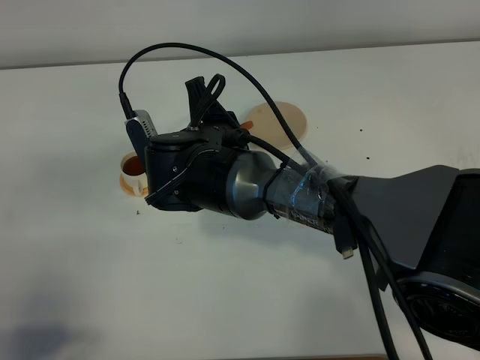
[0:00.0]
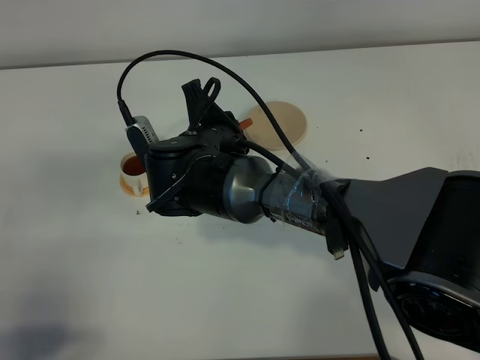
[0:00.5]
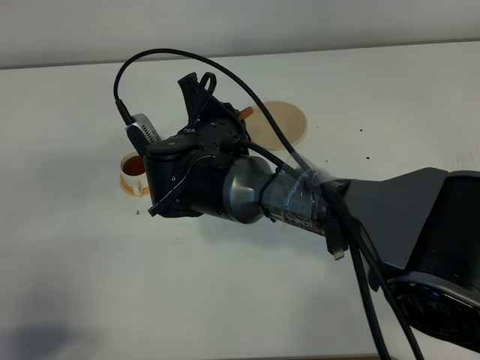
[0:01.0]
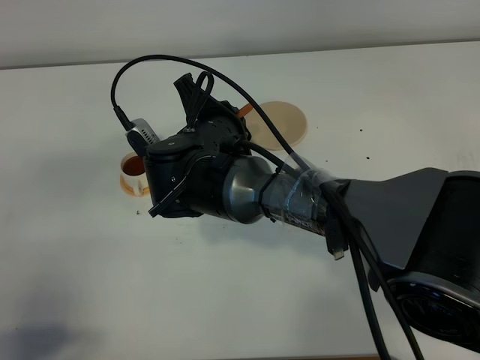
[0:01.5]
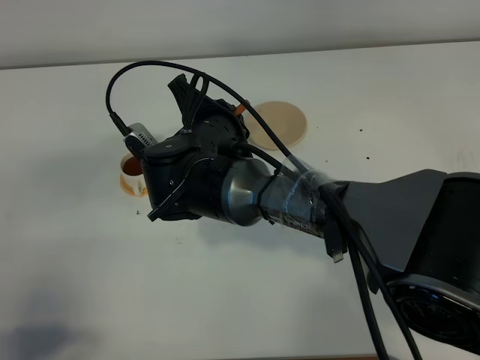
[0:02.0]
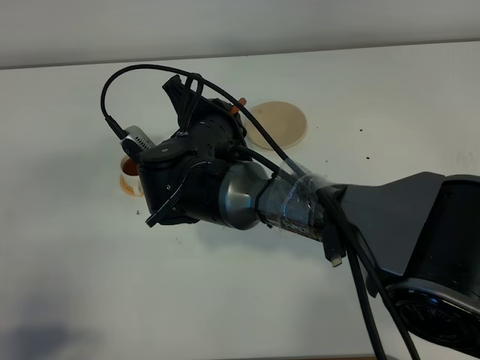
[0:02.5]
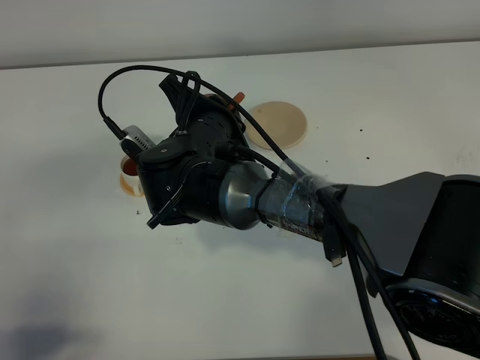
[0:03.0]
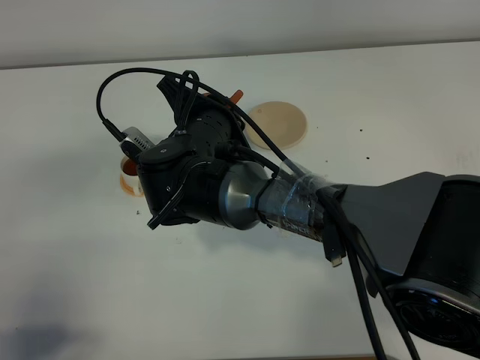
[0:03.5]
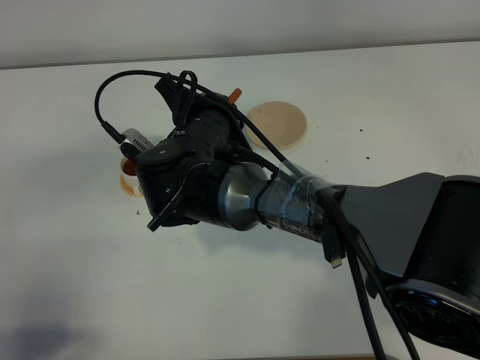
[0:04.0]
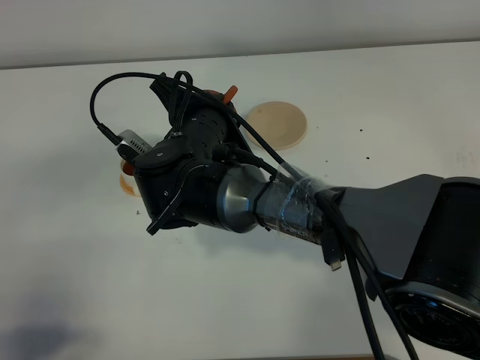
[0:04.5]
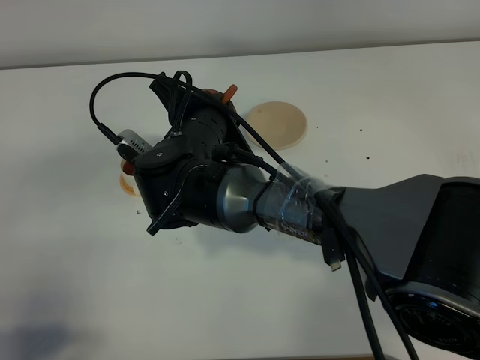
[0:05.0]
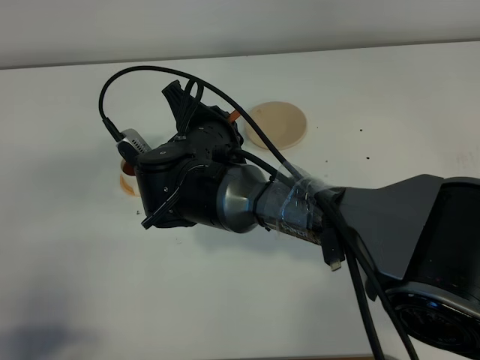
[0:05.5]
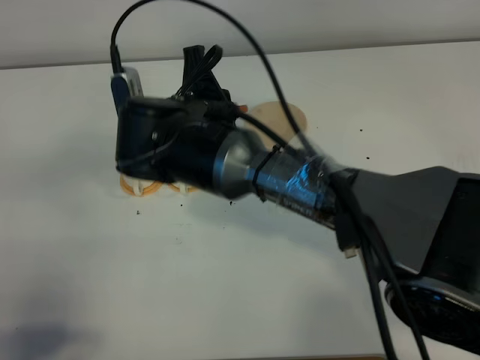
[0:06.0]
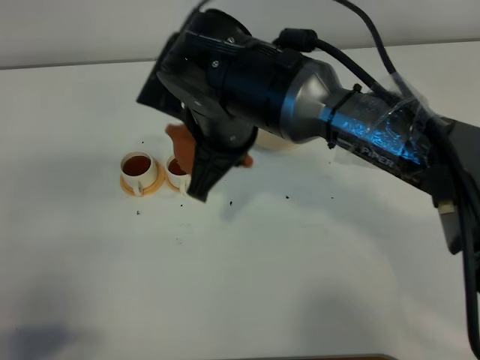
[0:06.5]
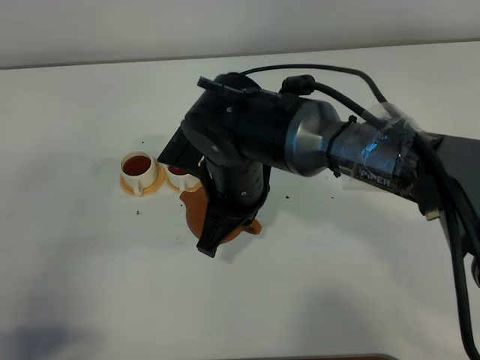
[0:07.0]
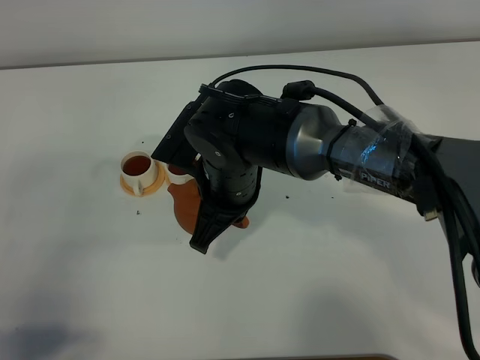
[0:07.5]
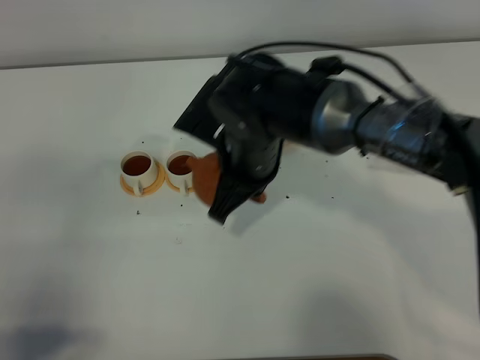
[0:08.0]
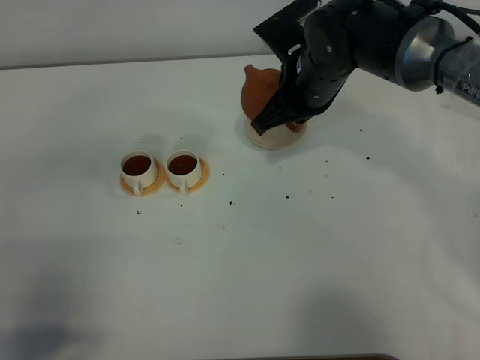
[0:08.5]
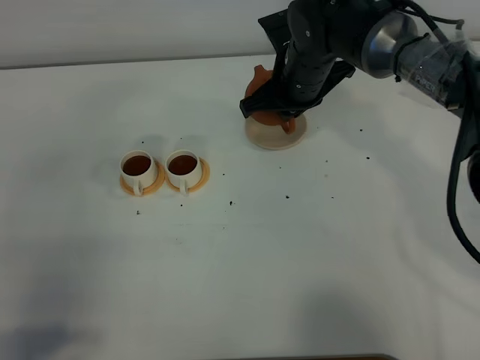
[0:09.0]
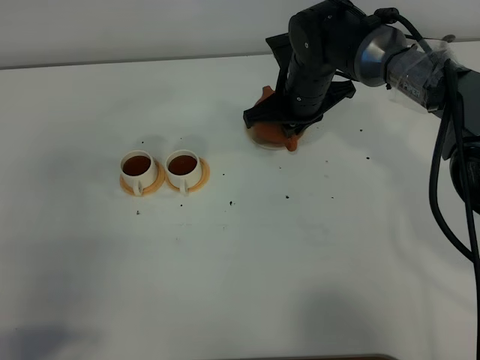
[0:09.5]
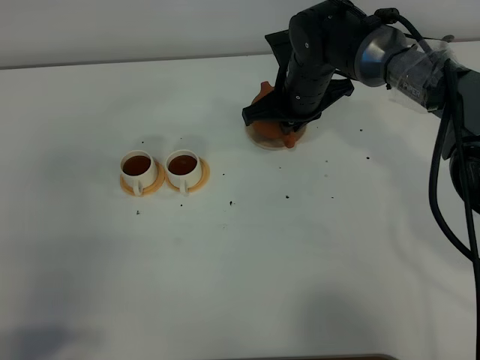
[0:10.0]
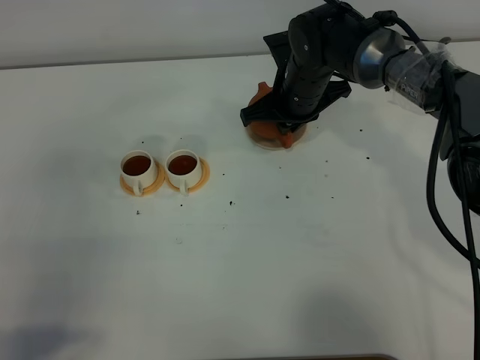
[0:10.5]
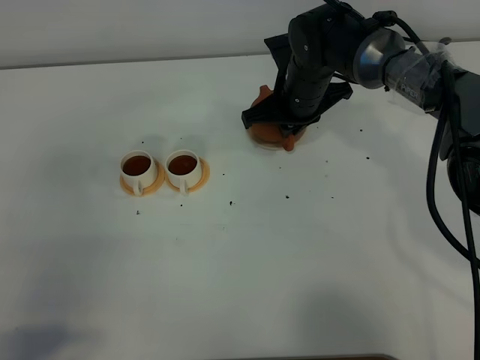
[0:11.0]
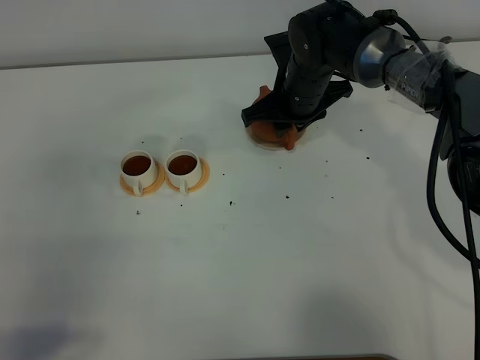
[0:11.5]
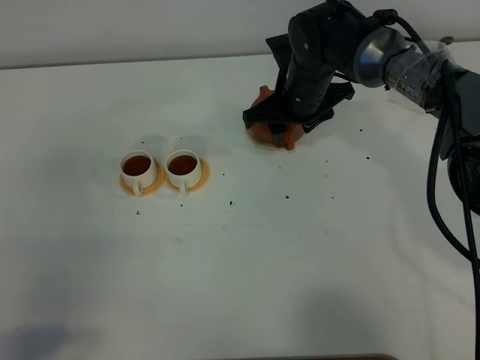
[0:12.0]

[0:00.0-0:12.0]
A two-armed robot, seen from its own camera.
Task of the whole recording: grasp the brown teapot and pour the tea into the two white teacups one by one, put the brown teapot back in its original place.
Step, 0:00.0 to 0:06.0: Pour tea into the teacup with the right gripper.
0:00.0 to 0:02.0: The grippers stay close to where they were, moving slightly.
0:02.0 to 0:04.0: The grippers move only a little.
0:06.0 to 0:08.0: The right gripper goes about 5 cm to the right.
0:08.0 to 0:10.0: The right gripper goes some 15 cm forward.
0:10.0 to 0:12.0: The right gripper opens.

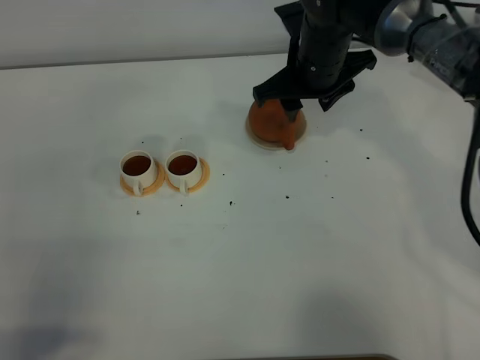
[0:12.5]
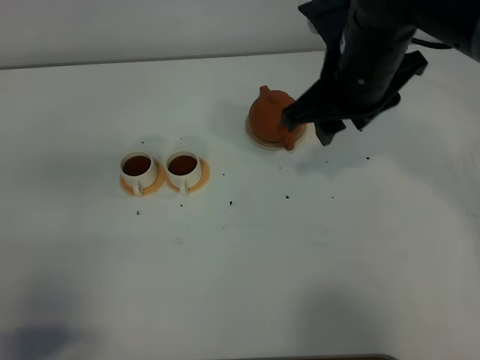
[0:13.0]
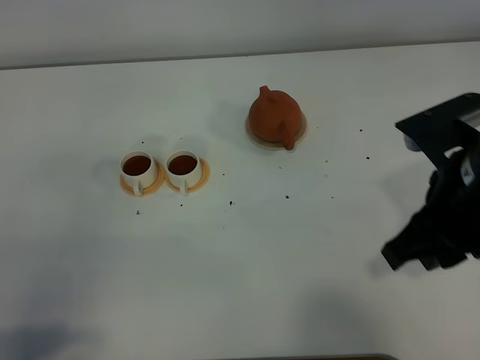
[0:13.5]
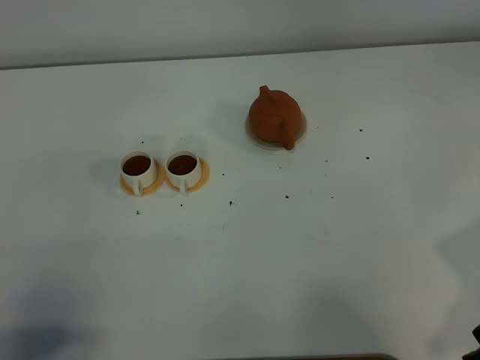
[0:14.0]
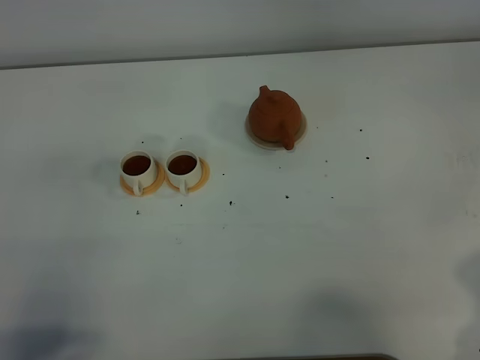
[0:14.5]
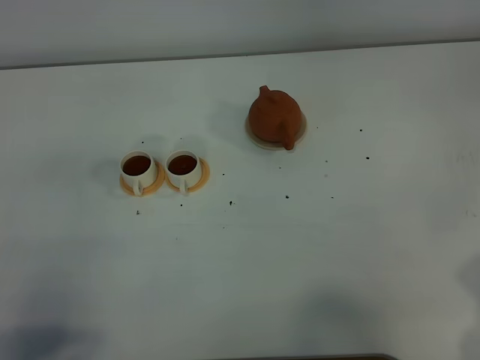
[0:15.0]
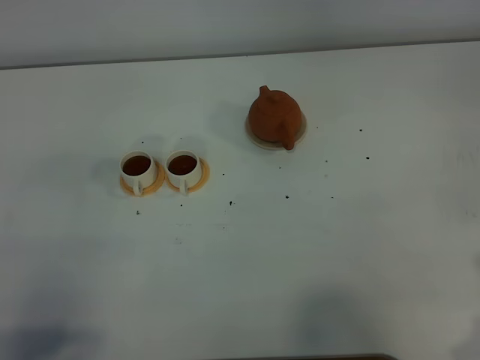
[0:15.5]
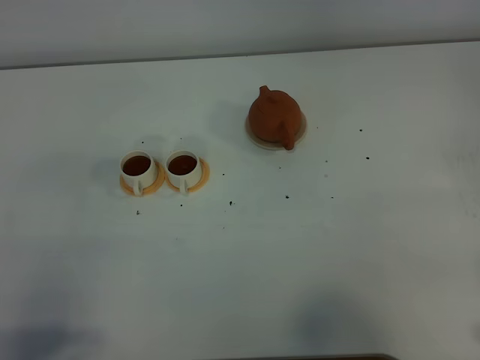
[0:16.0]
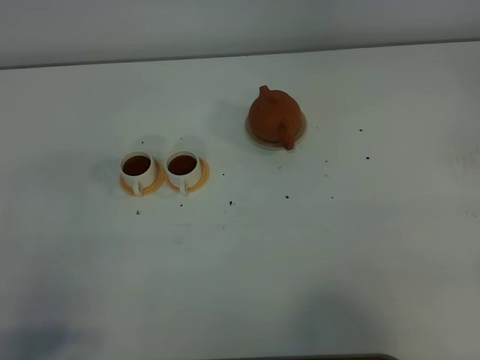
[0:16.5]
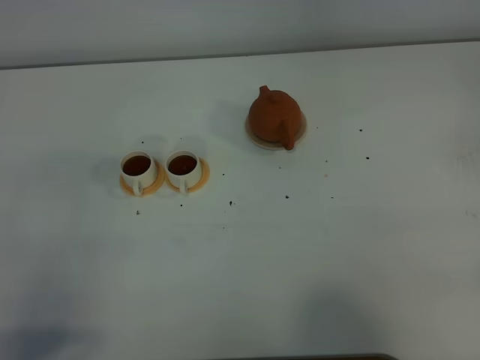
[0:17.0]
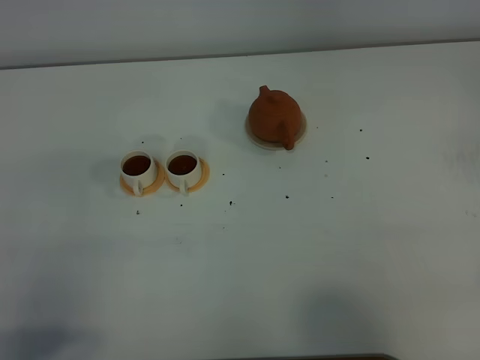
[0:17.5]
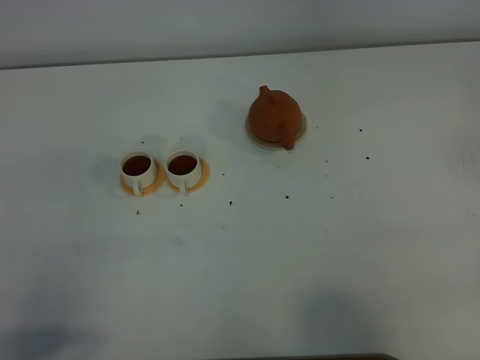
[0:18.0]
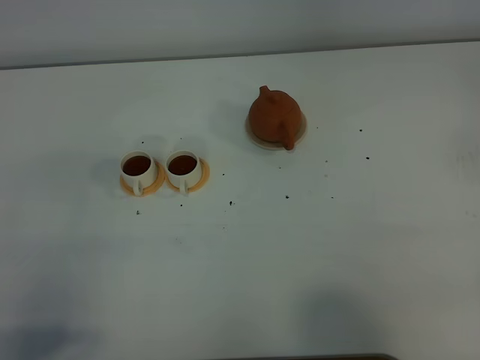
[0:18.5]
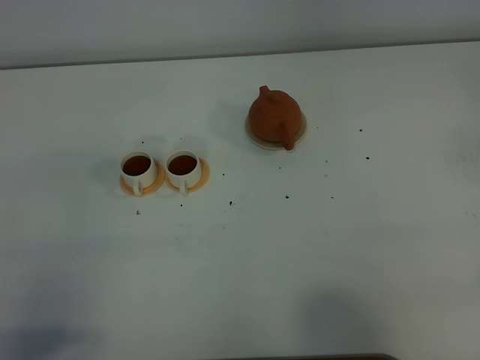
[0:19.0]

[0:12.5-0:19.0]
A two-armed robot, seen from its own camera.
Task of the whole recording: grasp the brown teapot and pour the tea into the two white teacups one by one, put the brown teapot back in its original place.
0:12.5 to 0:14.5: The right gripper shifts roughly 40 cm backward and to the right, and closes its fingers.
